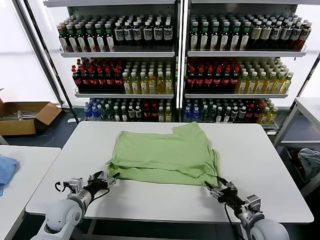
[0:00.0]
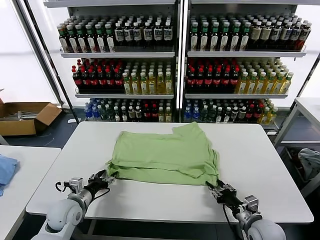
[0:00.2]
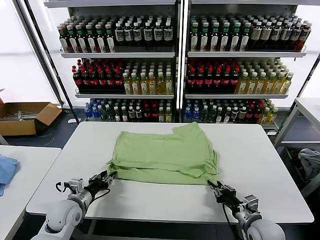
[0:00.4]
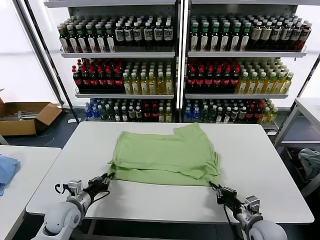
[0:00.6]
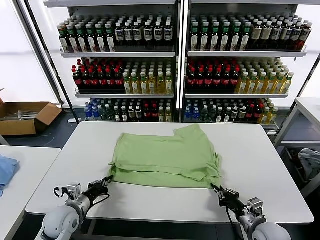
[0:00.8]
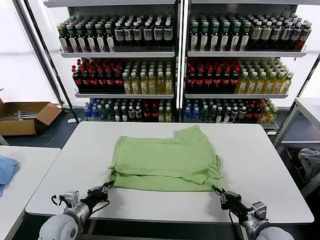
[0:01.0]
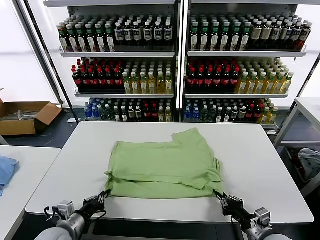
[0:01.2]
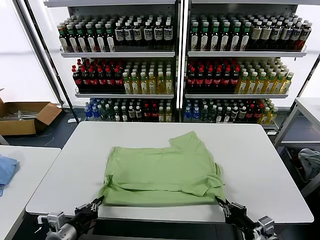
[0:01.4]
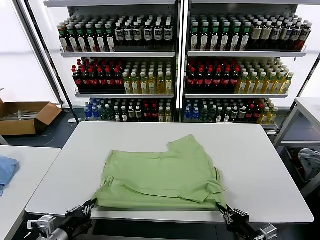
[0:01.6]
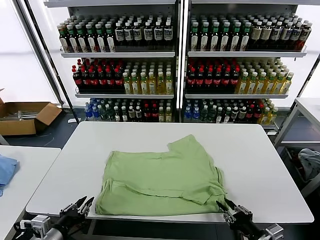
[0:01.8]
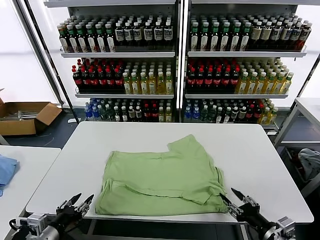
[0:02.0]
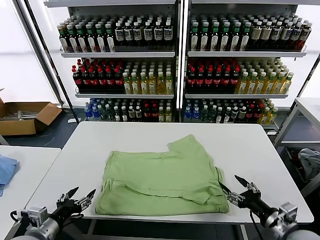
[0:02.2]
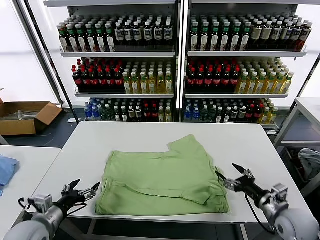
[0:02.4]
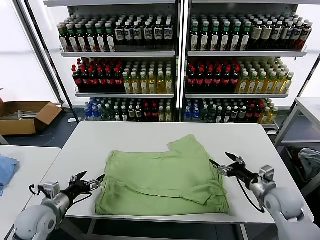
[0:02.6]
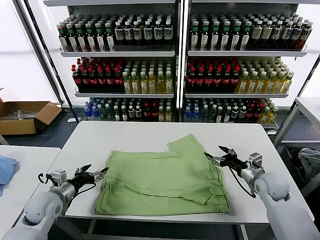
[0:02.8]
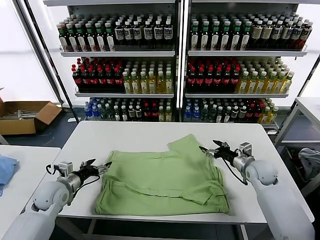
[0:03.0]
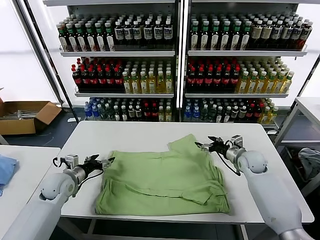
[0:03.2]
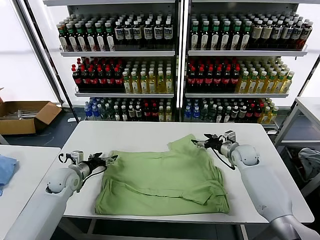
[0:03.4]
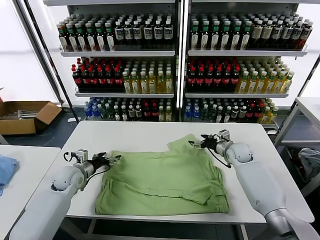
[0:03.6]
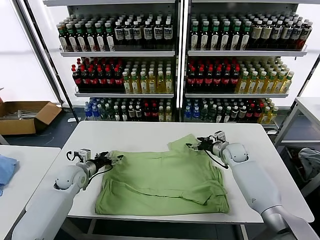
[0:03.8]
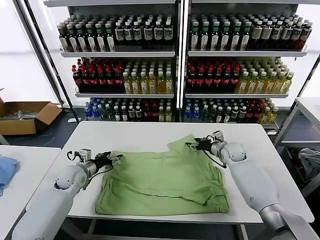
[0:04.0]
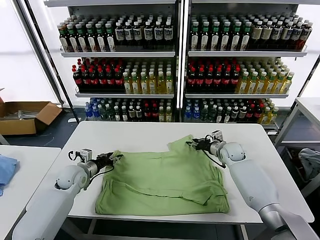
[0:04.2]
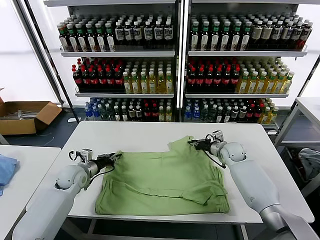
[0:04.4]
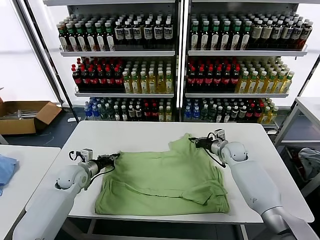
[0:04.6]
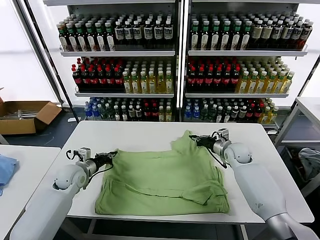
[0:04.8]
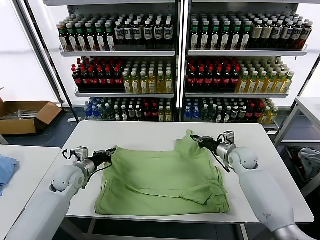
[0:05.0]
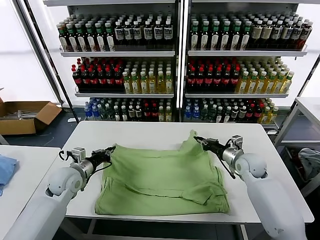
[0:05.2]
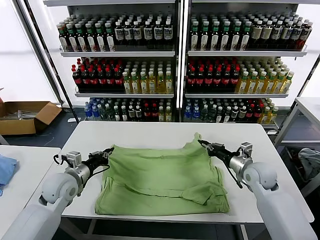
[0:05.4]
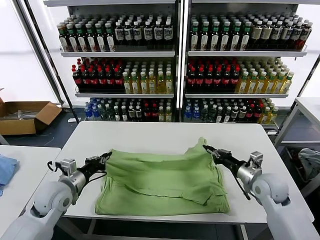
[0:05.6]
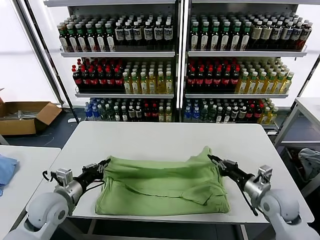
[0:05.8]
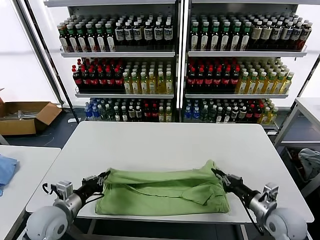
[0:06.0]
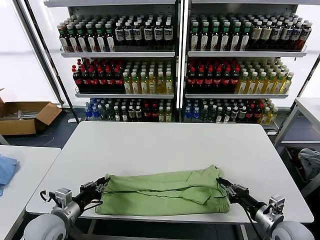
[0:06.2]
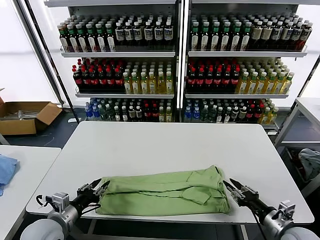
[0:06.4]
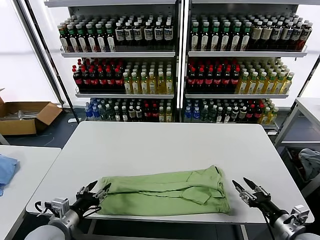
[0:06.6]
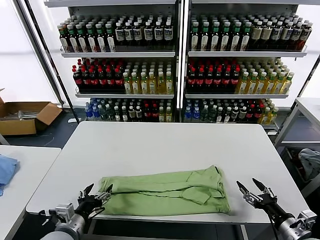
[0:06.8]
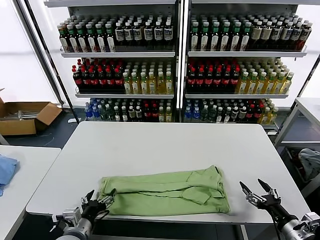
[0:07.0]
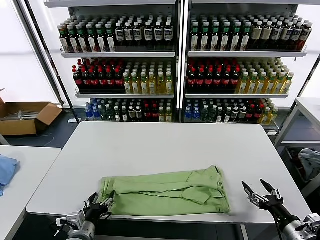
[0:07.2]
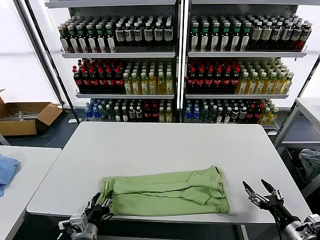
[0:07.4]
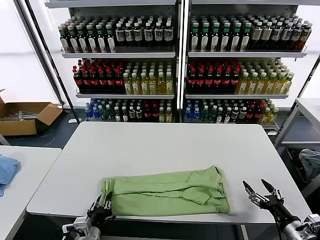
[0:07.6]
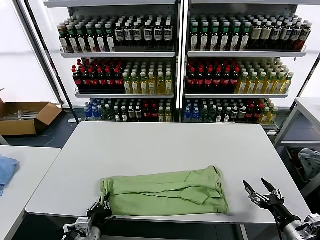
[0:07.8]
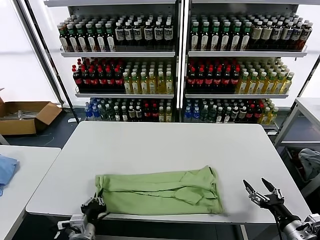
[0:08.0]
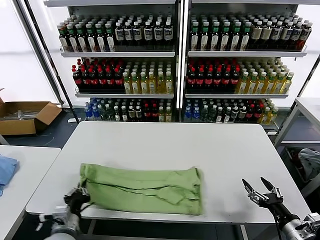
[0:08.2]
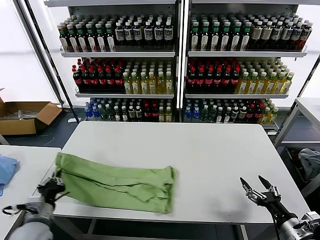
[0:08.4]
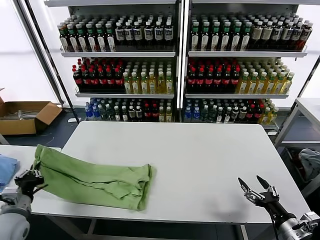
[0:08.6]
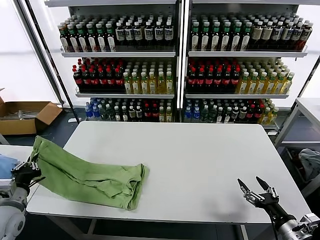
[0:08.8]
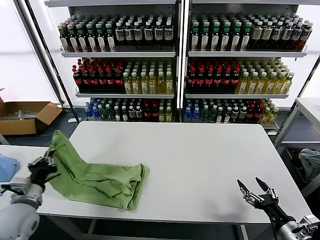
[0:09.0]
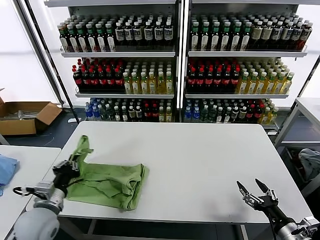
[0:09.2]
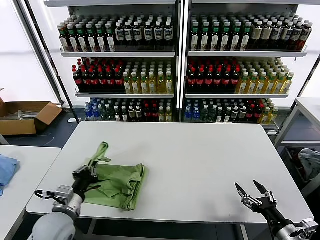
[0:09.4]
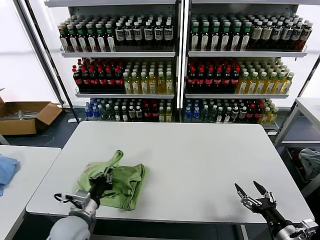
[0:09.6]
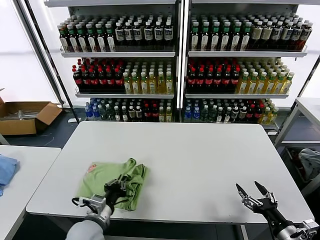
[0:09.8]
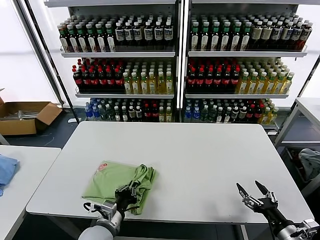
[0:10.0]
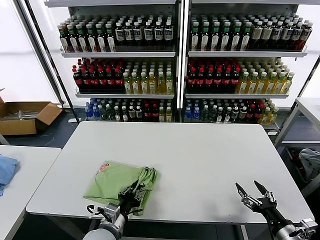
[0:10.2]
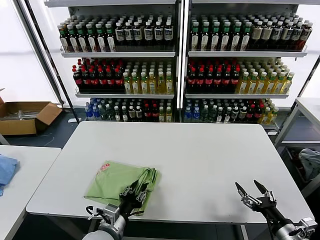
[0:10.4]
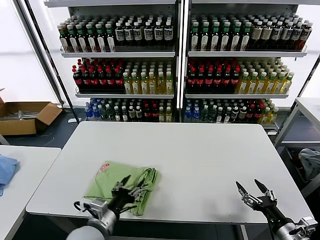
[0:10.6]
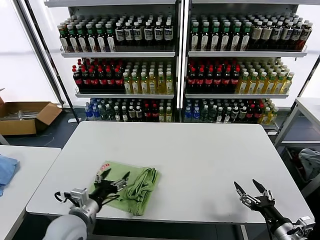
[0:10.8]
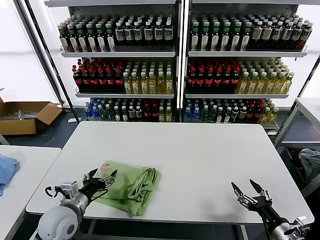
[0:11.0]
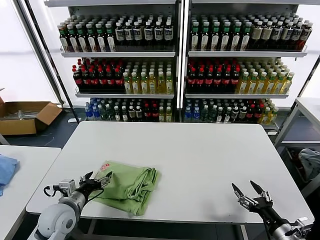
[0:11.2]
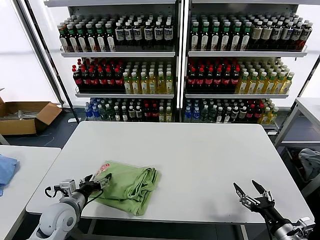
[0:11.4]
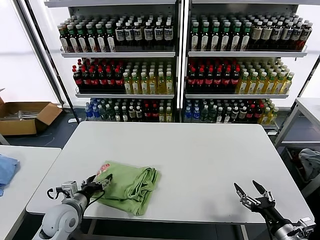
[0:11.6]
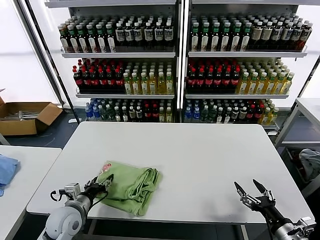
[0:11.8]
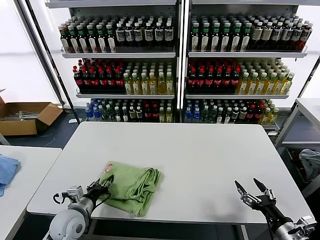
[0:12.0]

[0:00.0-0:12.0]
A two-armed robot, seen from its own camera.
Task of the whole recording: fold and organize the clothes.
Step, 0:00.0 to 0:01.8: Drag the clothes downward with both gripper.
Step, 0:02.0 to 0:04.4: use both grippers simultaneously to clamp the upper edge of the clothing fabric.
Step, 0:04.8 to 0:06.4: use both grippers to drag the upper edge of the fabric backward and fold it over the lower edge.
Step, 0:06.6 to 0:07.6: use the left gripper to clamp the left edge of the fabric.
Step, 0:08.0 to 0:10.4: use the left gripper to drag the left edge of the fabric to the left and folds it over the right edge.
0:00.0 to 0:01.6: Both grippers move backward, about 10 cm. The left gripper closes up.
0:01.6 to 0:03.0: The right gripper is displaced forward by roughly 30 cm, and opens its fingers; the left gripper travels forward by roughly 20 cm, and opens up.
0:03.0 to 0:04.4: The right gripper shifts some 10 cm forward and to the left, and closes its fingers. Meanwhile the left gripper is displaced forward by approximately 10 cm, and closes.
0:04.4 to 0:06.0: The right gripper goes some 30 cm backward. Meanwhile the left gripper moves backward, roughly 15 cm.
0:06.0 to 0:07.6: The right gripper shifts some 10 cm backward and to the right, and opens up; the left gripper moves to the right, backward and downward, approximately 15 cm, and opens up.
0:07.6 to 0:09.0: The left gripper goes about 20 cm to the left, upward and forward, and closes its fingers.
0:09.0 to 0:10.4: The left gripper heads to the right, covering approximately 20 cm, and opens.
0:10.4 to 0:12.0: The left gripper heads to the left and forward, covering some 15 cm, and opens and closes again.

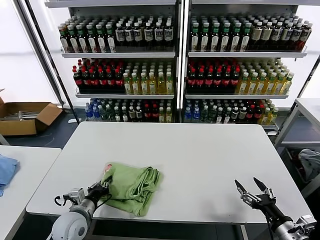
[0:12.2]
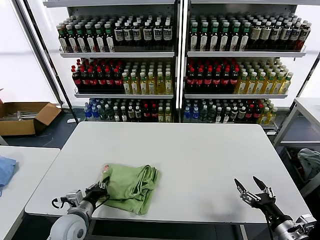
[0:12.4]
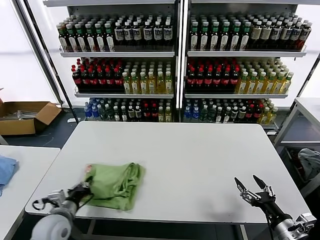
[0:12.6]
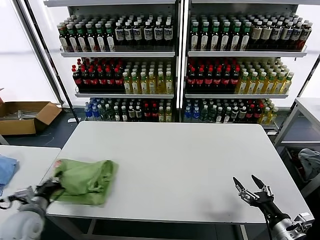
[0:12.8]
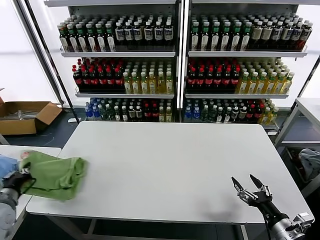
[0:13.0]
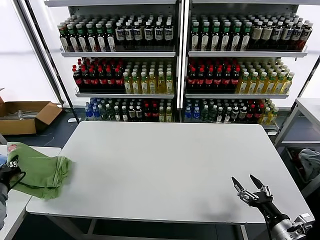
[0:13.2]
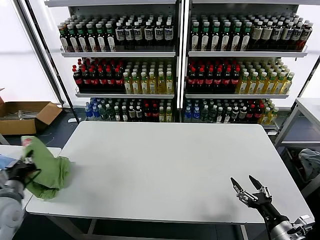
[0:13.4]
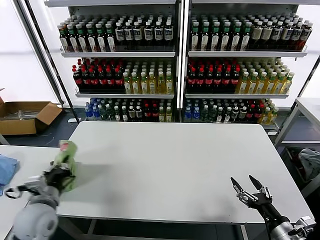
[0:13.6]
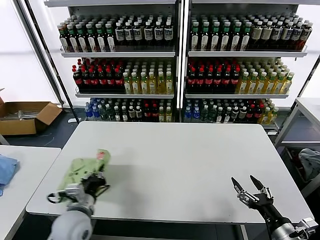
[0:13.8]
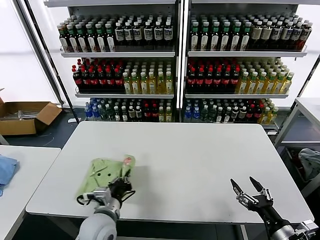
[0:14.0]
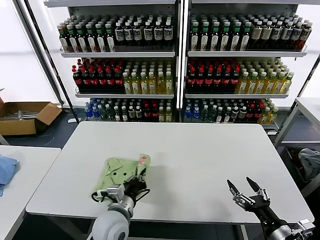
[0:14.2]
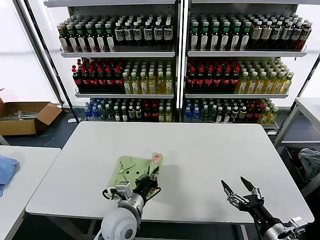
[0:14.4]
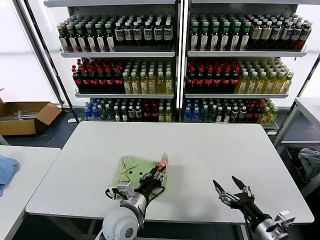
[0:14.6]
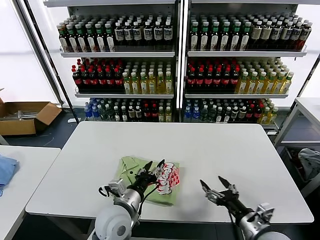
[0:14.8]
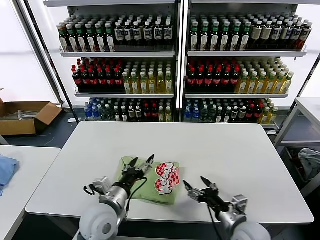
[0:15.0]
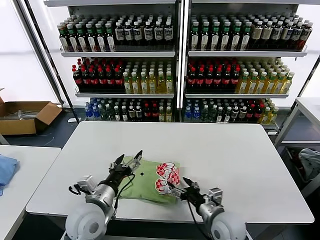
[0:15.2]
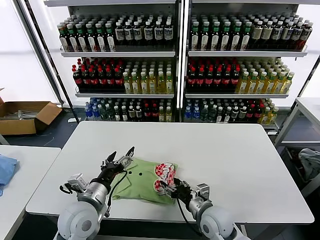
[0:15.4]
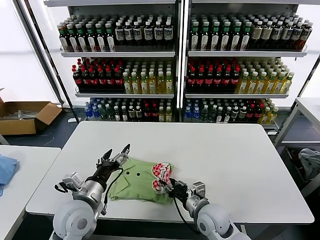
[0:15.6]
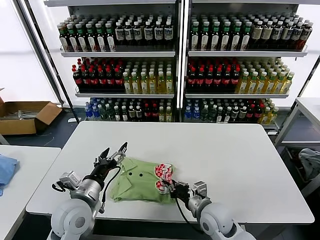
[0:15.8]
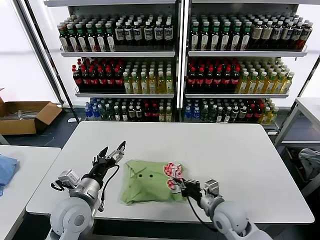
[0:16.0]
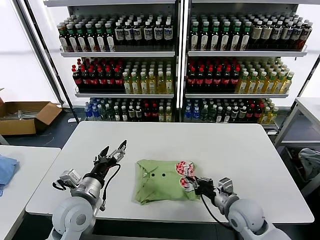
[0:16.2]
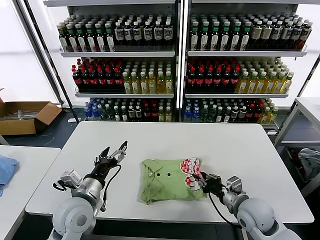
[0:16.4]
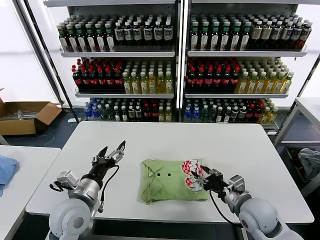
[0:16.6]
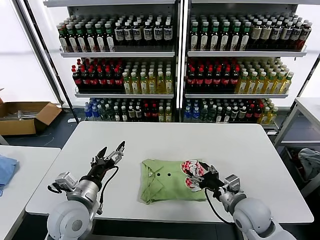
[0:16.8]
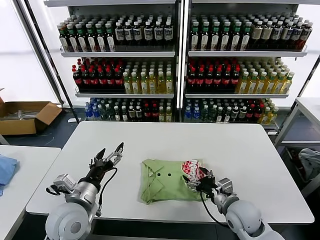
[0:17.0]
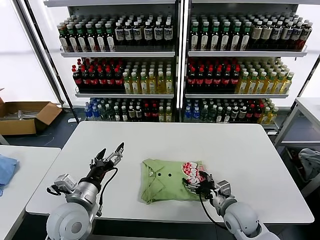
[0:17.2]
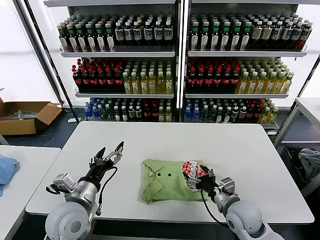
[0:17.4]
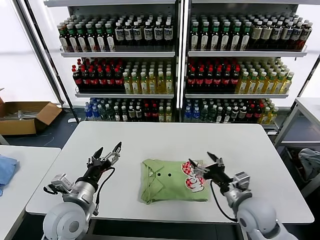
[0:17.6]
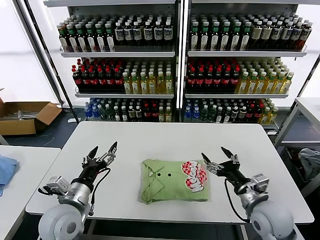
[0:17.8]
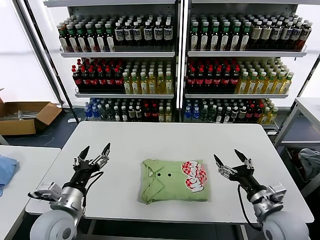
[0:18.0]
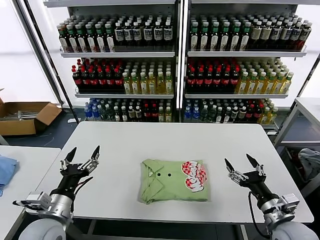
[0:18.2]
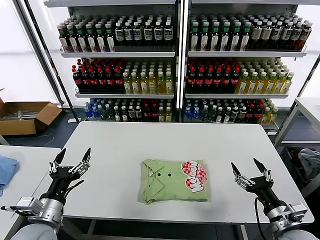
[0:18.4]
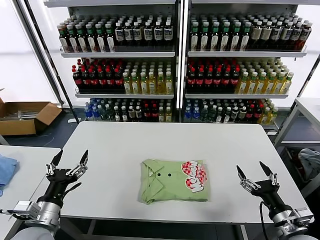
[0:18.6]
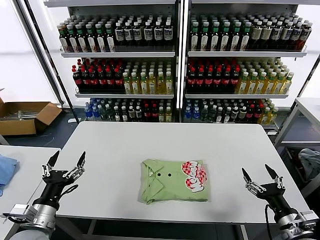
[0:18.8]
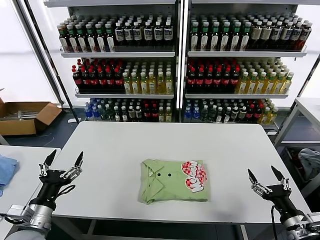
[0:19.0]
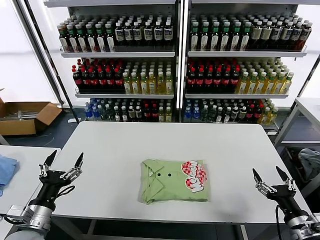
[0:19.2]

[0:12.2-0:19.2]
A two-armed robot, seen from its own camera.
Task of the whole recording: fold and organize the clothes.
Step, 0:12.2 to 0:14.6: Flip the folded clothes over with left gripper.
Step, 0:14.8 to 0:17.4: Drag the clothes to the center of the table.
0:12.2 to 0:13.6: The left gripper heads upward and to the left, covering roughly 15 cm.
0:13.6 to 0:15.0: The right gripper goes some 15 cm to the left and forward, while the left gripper shifts approximately 20 cm to the right, and opens its fingers.
0:15.0 to 0:16.4: The right gripper shifts about 5 cm forward, goes to the left and returns, some 10 cm each way, and closes its fingers. Meanwhile the left gripper is displaced to the left by about 5 cm.
0:16.4 to 0:17.8: The right gripper moves about 5 cm, and opens up.
0:17.8 to 0:19.2: The right gripper goes about 15 cm to the right and backward; the left gripper is displaced to the left and backward by some 10 cm.

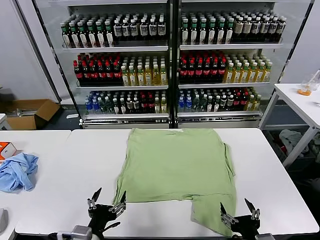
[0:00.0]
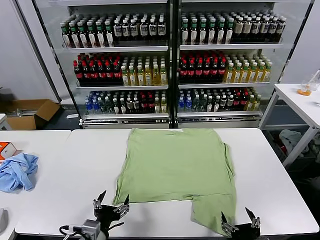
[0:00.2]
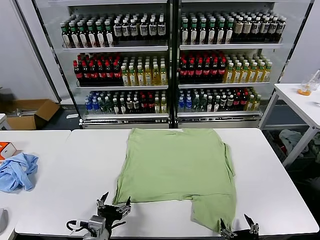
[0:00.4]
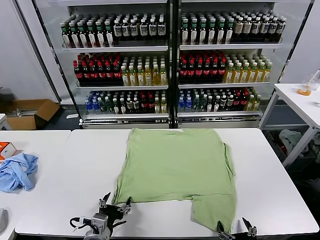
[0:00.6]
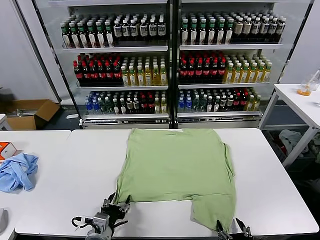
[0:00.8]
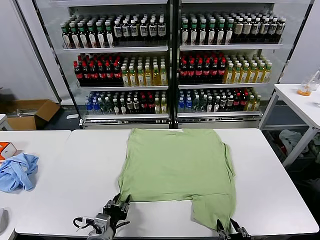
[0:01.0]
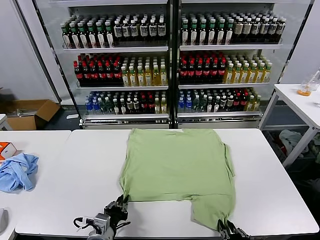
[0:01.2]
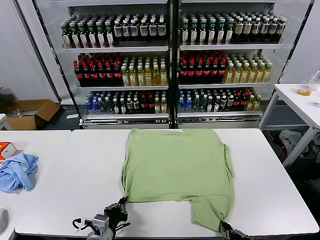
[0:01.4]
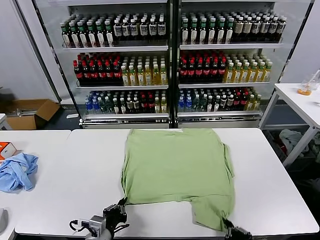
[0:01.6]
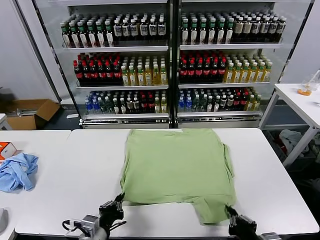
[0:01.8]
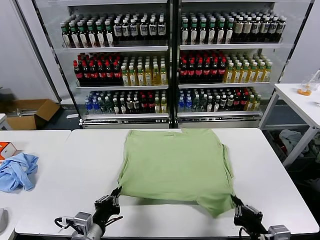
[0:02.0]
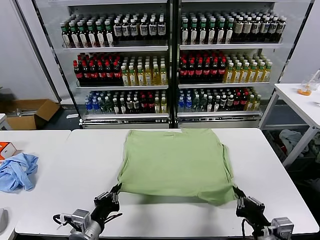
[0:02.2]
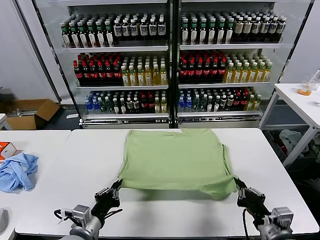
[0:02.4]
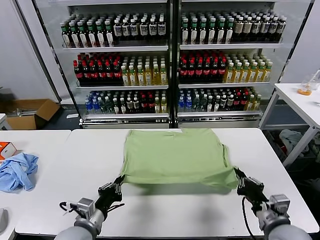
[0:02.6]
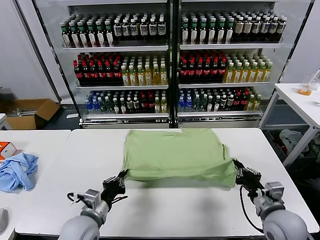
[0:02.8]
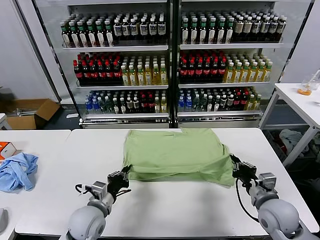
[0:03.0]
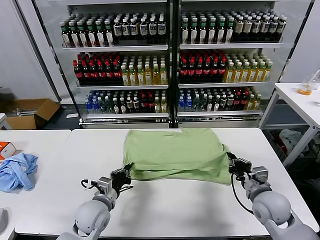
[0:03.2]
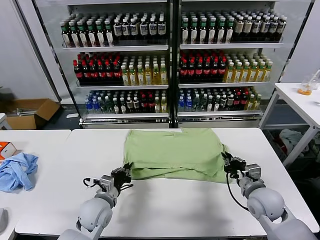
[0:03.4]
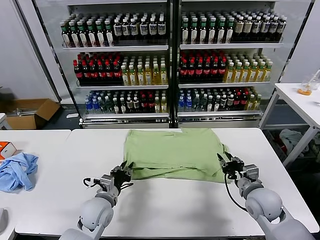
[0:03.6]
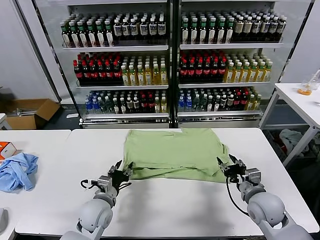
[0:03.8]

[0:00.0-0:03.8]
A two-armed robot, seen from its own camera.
Task of the whole recording: fold and organize the clothes.
Step, 0:00.0 to 0:01.6: use both grippers simultaneously to clamp the lower edge of the clothing fabric.
Step, 0:01.8 to 0:03.8: use both grippers to drag the lower edge of the fabric forward and fold it over the upper edge.
0:01.2 to 0:02.6: The left gripper shifts by approximately 5 cm. The right gripper heads forward and to the right, covering approximately 15 cm.
0:02.6 to 0:03.8: Both grippers travel together forward, approximately 10 cm. The right gripper opens its fingers; the left gripper opens up.
